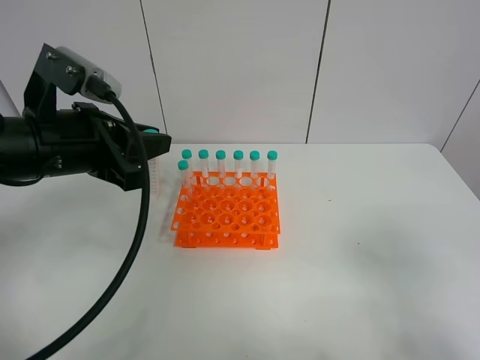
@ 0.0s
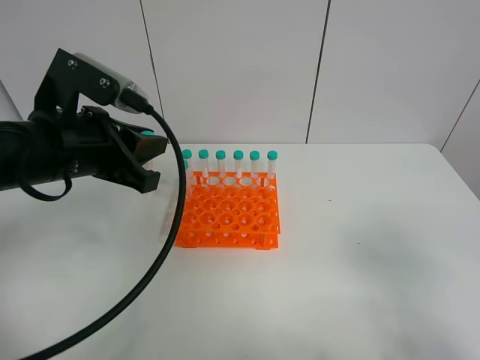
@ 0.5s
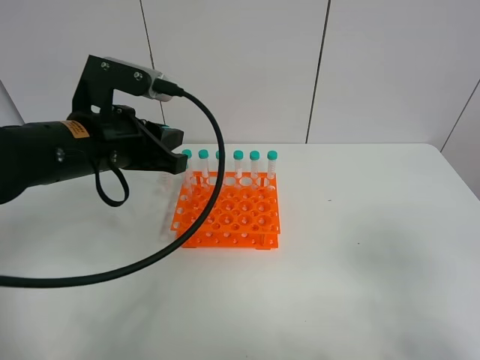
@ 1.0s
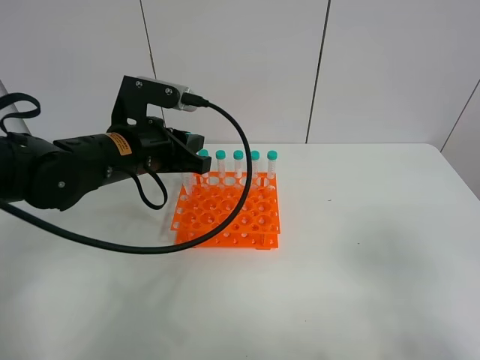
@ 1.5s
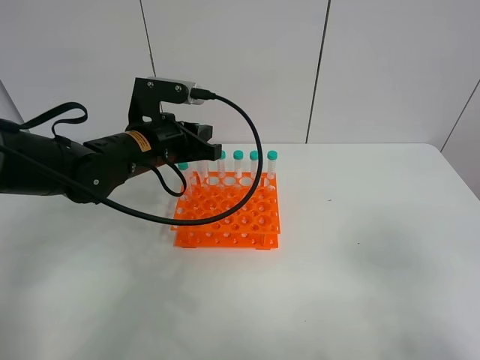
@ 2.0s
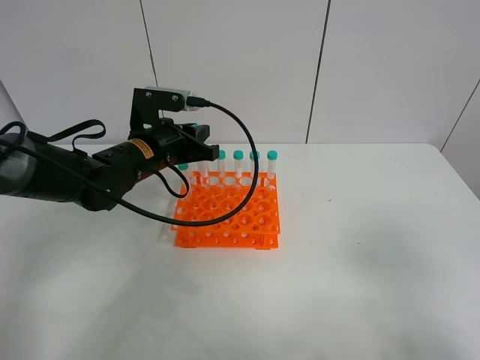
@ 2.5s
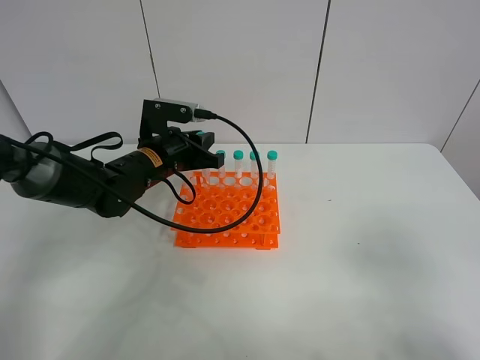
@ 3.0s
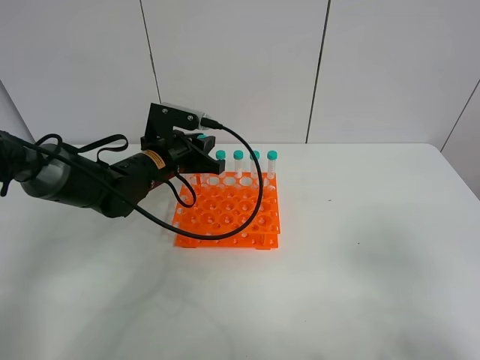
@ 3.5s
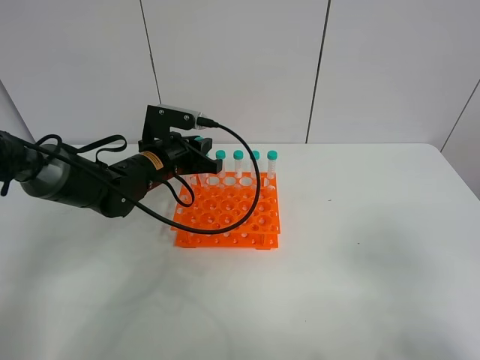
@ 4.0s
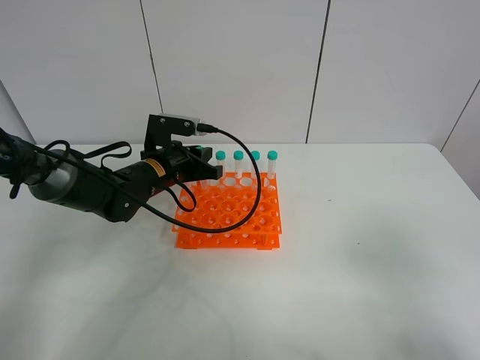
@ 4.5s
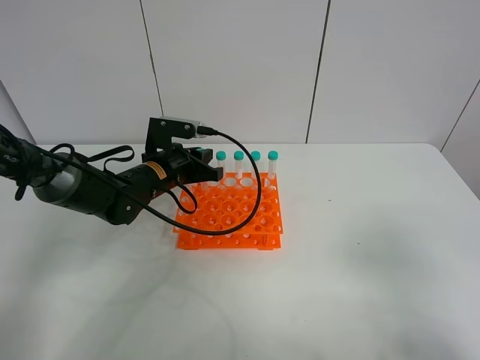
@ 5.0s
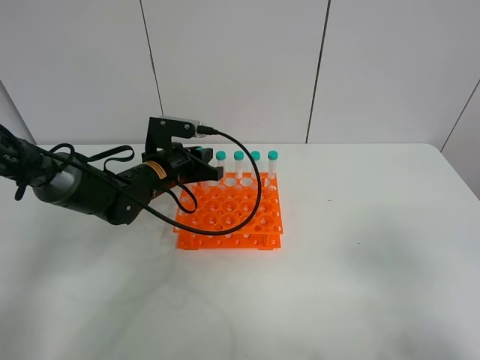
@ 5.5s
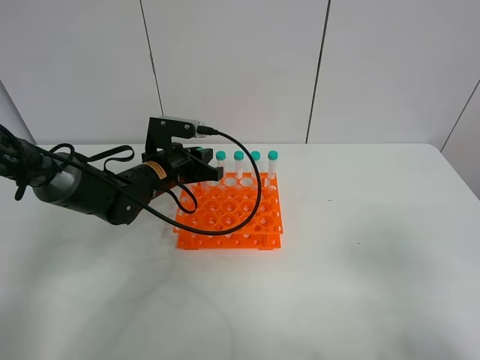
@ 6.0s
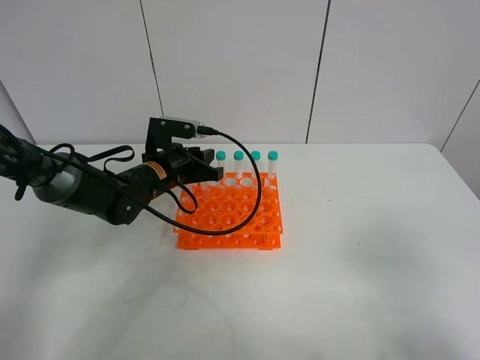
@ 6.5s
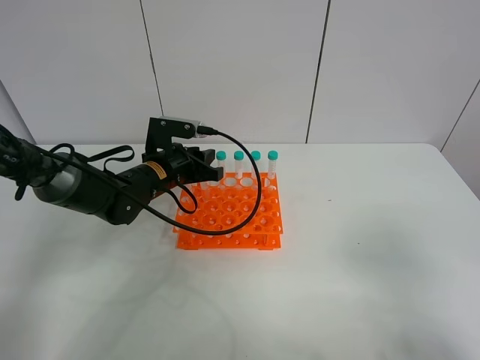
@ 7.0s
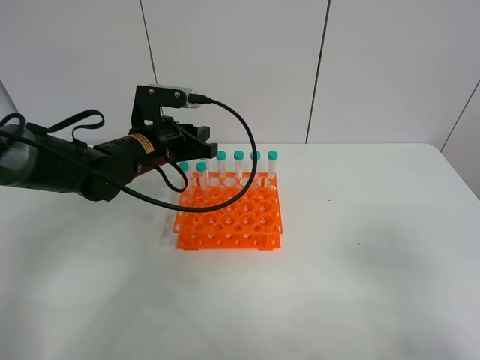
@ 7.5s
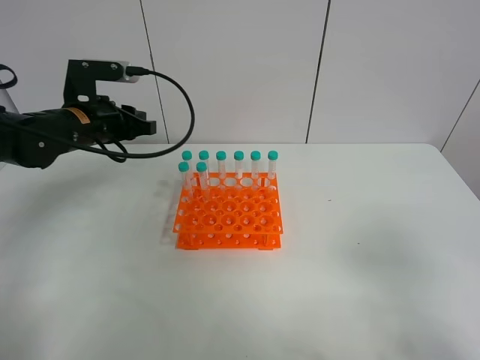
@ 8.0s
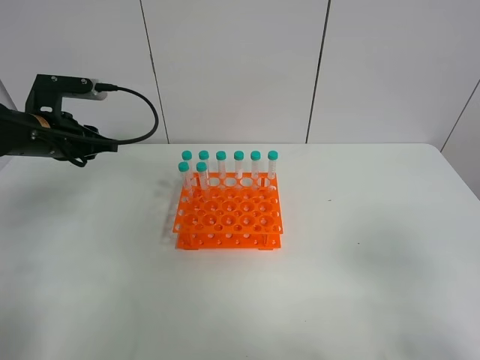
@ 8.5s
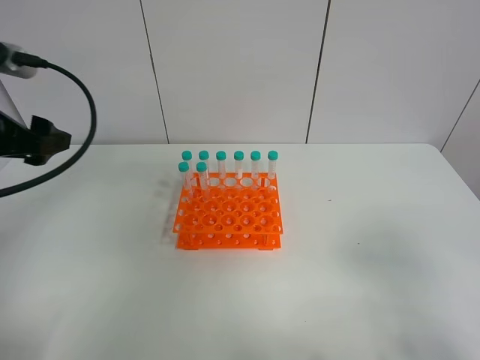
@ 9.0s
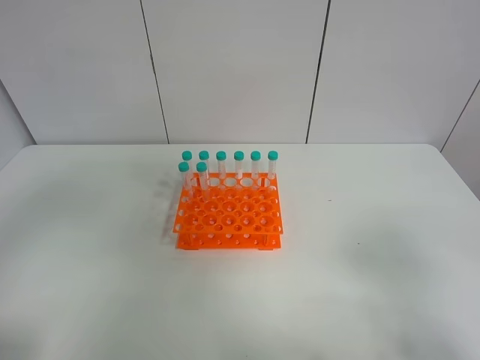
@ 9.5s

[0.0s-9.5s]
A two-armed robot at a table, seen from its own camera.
Task of the whole recording: Put the test tube on the table back onto the test tube rack.
Step, 0.0s to 7.5s: Place the test tube on the test tube rack with the left gripper.
0.0s to 2.0s: The left gripper shifts some 15 cm forward, downward and to the right.
2.0s to 4.0s: The left gripper travels downward by about 5 cm.
4.0s to 5.5s: There are only small adjustments of the grippers.
5.5s to 7.5s: The left gripper shifts some 5 cm upward.
7.5s to 9.5s: The left gripper heads backward, upward and to the left, covering some 40 cm, and opens up.

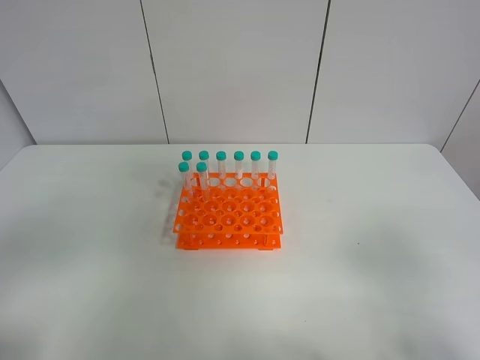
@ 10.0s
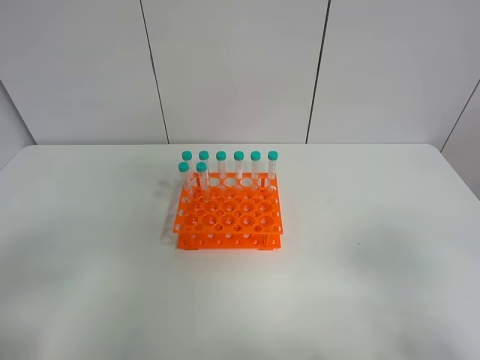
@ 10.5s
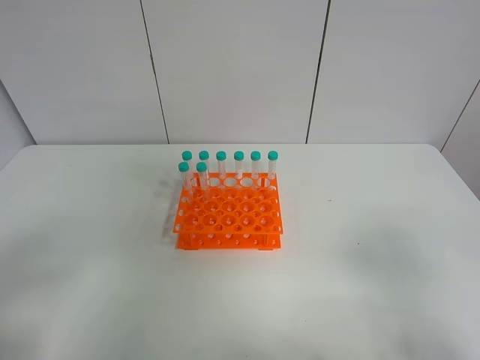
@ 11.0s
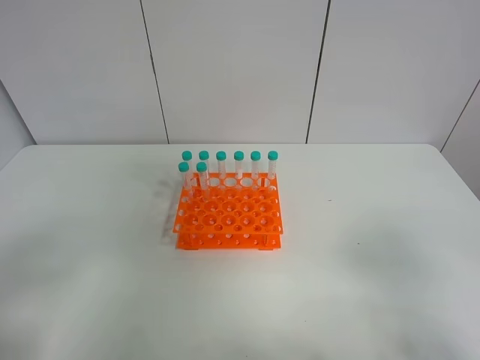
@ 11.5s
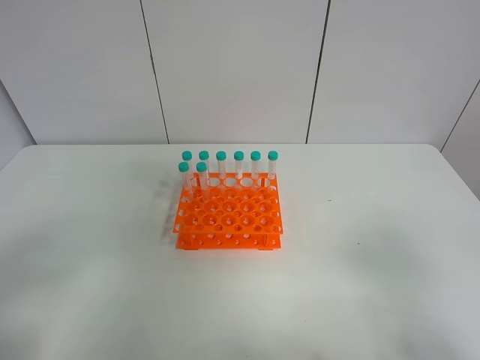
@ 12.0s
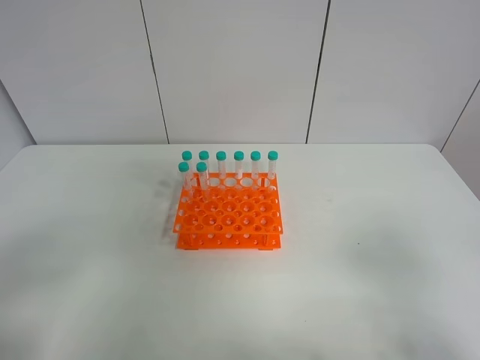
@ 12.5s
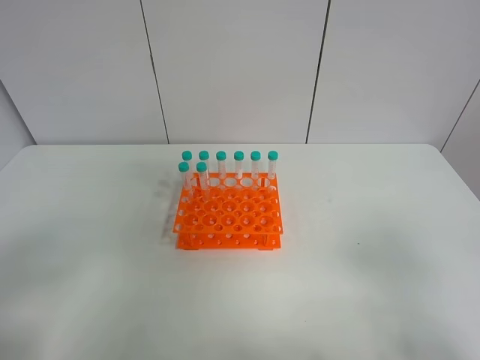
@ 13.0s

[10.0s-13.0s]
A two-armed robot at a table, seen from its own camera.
Task of the whole recording: Put the test tube on the table back onto the test tube rack.
11.5s to 13.0s: Both grippers stay about where they are.

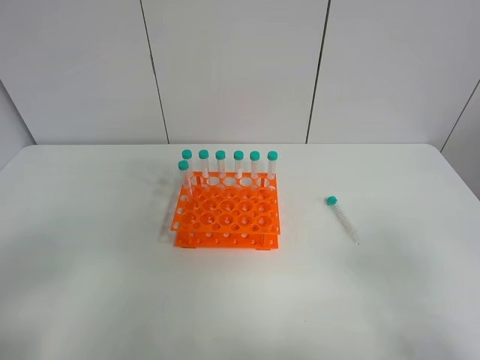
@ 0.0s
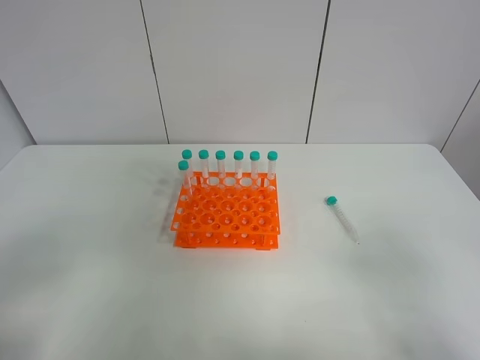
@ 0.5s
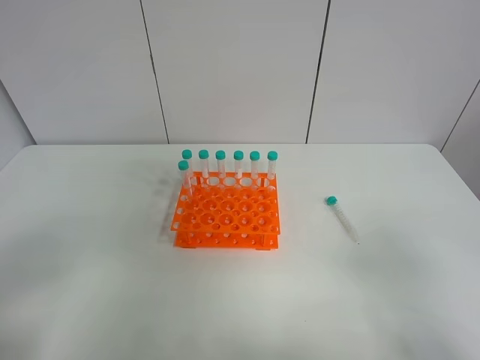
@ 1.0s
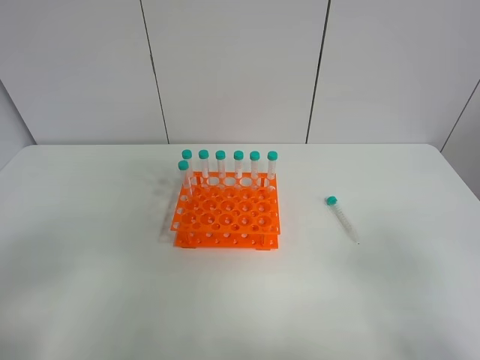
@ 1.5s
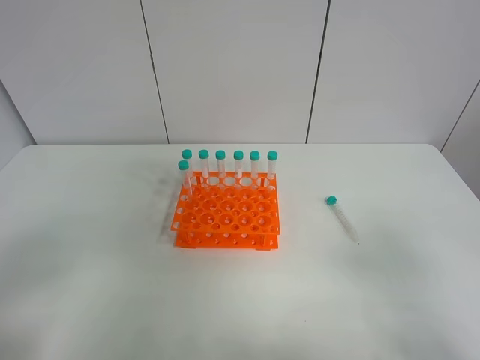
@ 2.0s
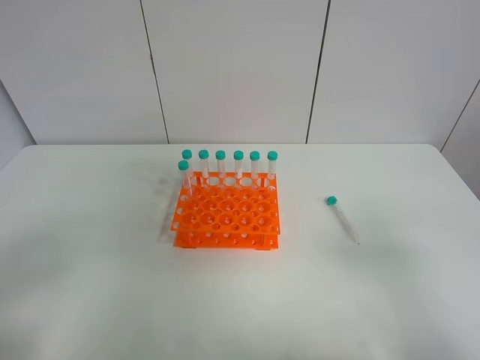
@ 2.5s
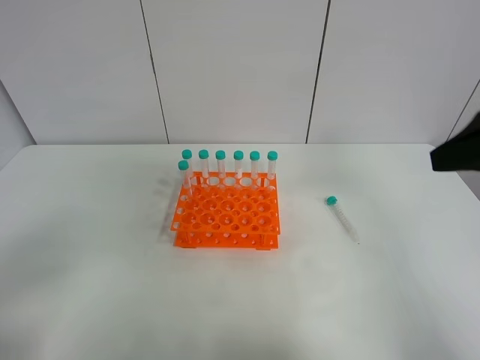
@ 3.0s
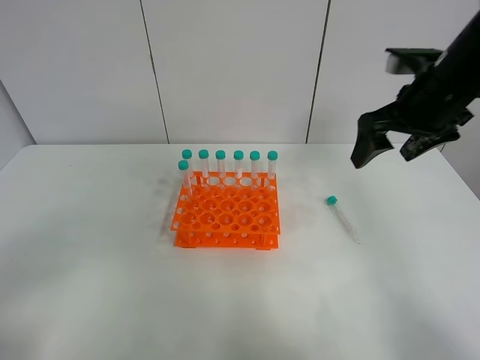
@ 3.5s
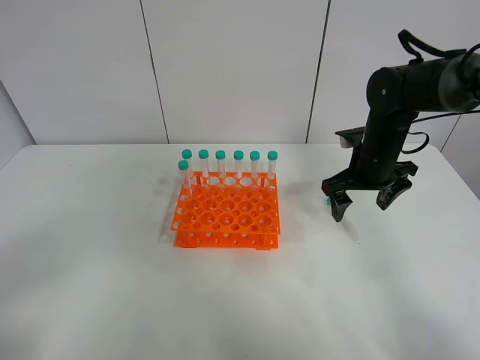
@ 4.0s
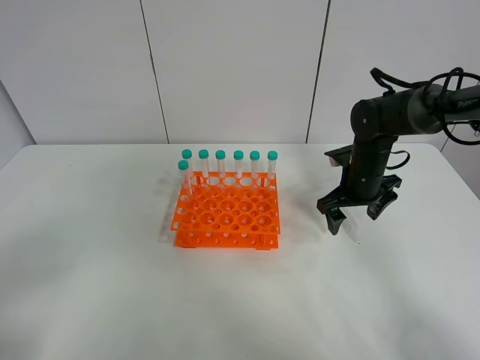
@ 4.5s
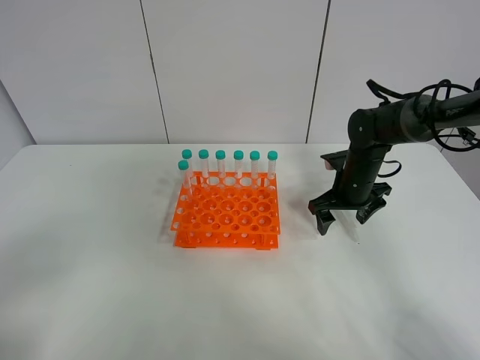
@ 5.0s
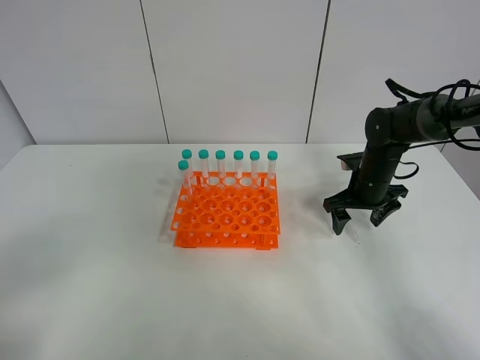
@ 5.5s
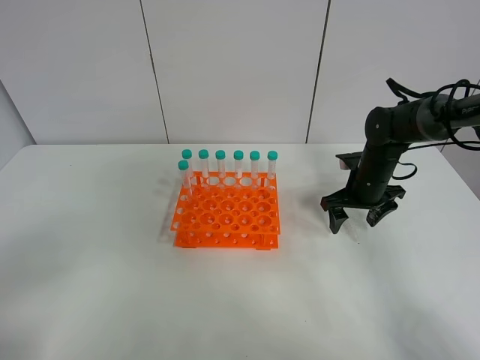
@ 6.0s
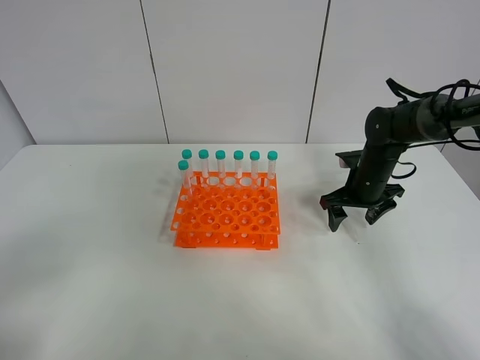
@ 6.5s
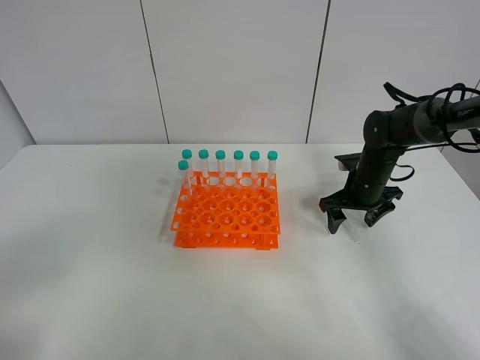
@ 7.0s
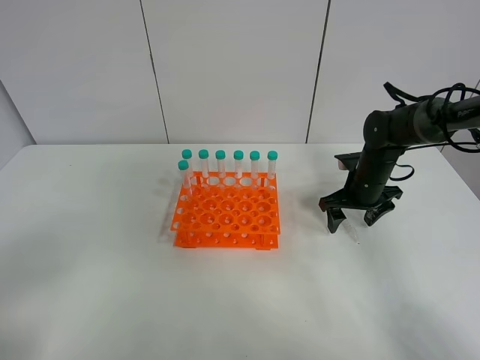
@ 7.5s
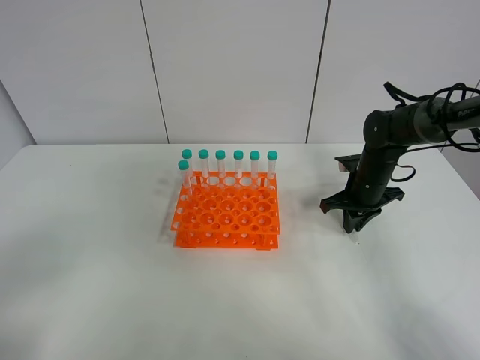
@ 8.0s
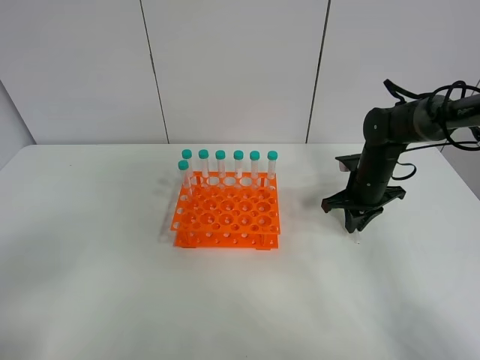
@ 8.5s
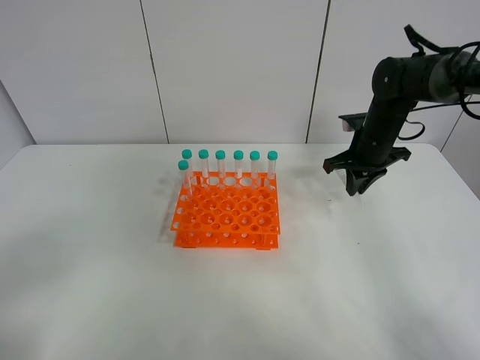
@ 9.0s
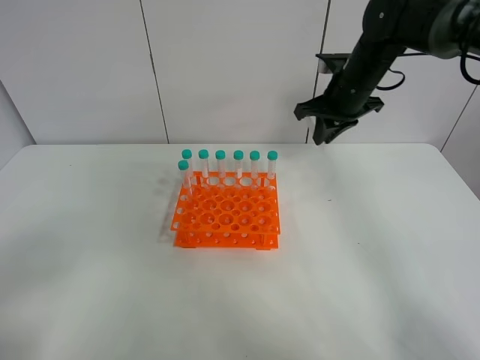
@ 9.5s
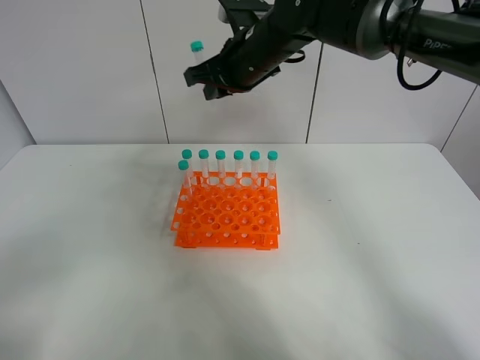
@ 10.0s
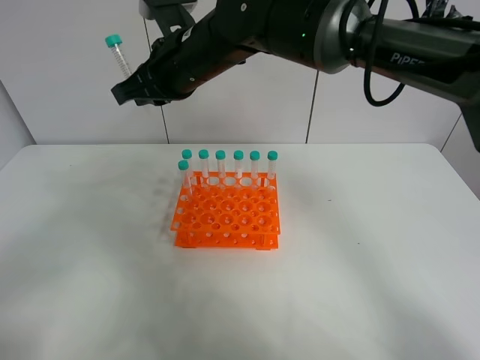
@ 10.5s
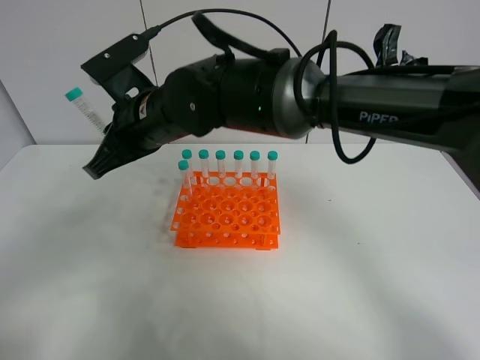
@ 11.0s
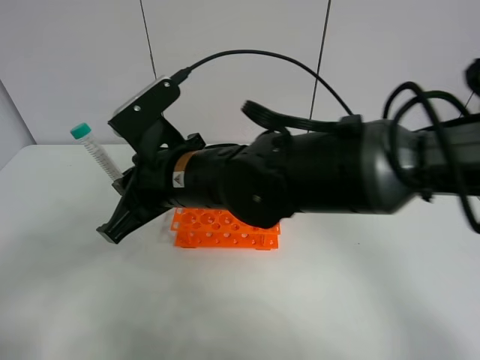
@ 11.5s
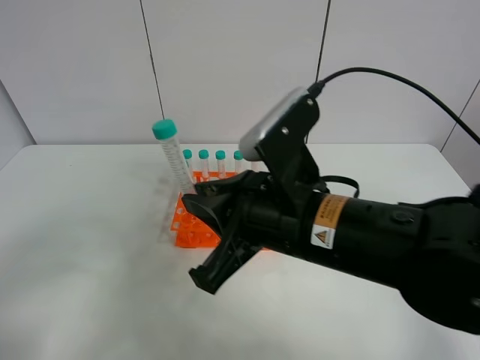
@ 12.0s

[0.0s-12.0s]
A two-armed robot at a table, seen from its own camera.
Task of the whole recording: Put the test tube on the table back onto the test tube rack.
Step, 0.0s to 8.0s: Pick up the test tube with the right gripper.
0.0s to 2.0s: Neither gripper changes place.
2.0s to 4.0s: The right gripper goes approximately 40 cm forward.
4.0s to 6.0s: The right gripper moves downward, some 5 cm.
6.0s to 8.0s: The right gripper closes its fingers.
8.0s to 10.0s: The right gripper heads to the left and upward, covering about 30 cm.
10.0s to 12.0s: The right gripper heads backward, covering approximately 25 cm.

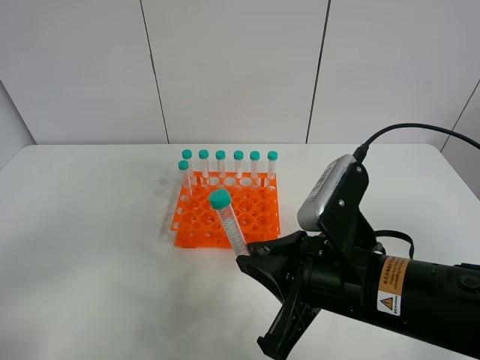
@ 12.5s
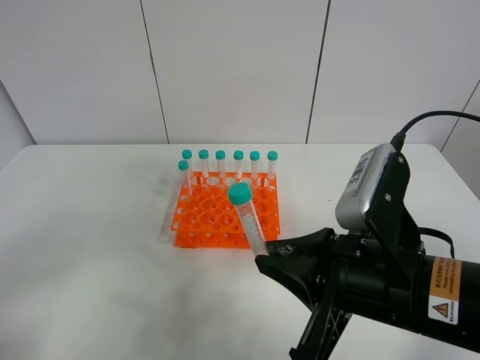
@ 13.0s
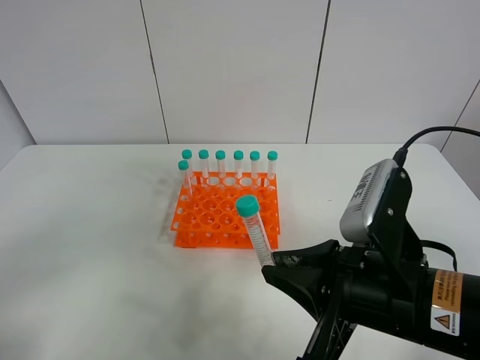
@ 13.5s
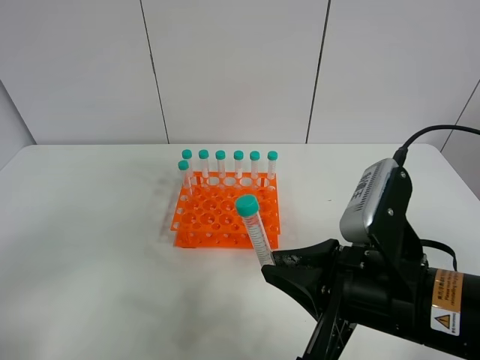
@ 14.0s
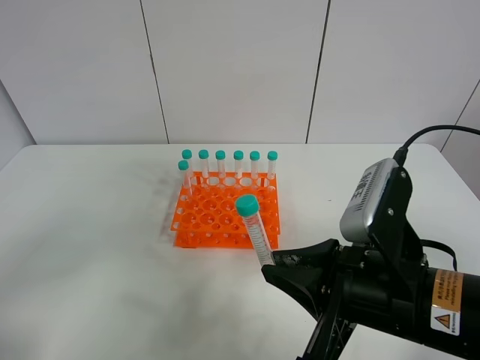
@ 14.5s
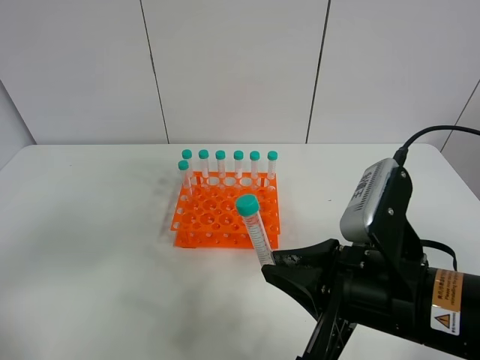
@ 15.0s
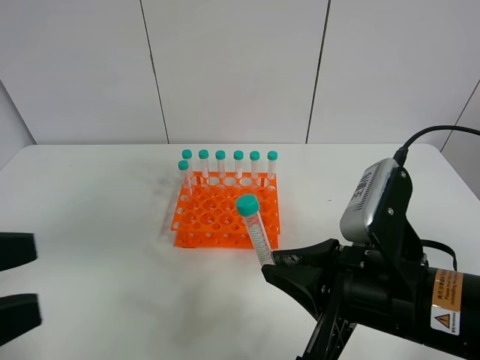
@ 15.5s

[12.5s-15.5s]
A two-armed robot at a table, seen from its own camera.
Task of the whole recording: Put the test tube on the table back onto the test tube rack.
12.5s to 14.0s: The grippers stay close to where they were, moving slightly.
14.0s to 15.5s: The left gripper travels to the right and forward by approximately 10 cm.
